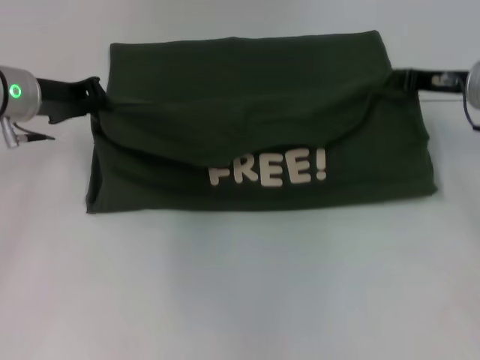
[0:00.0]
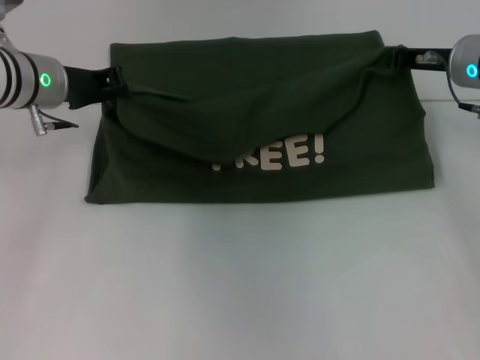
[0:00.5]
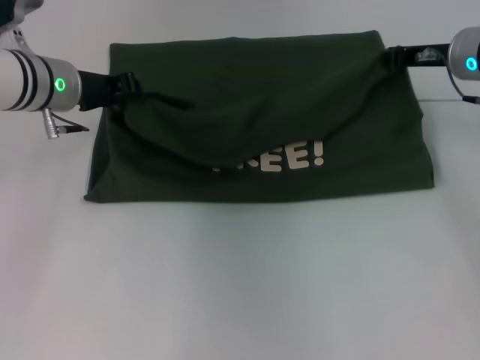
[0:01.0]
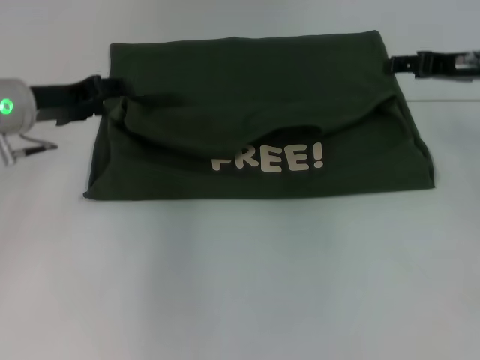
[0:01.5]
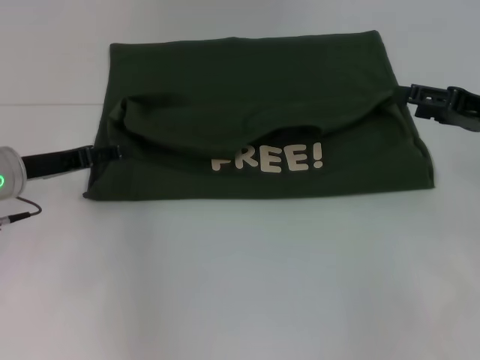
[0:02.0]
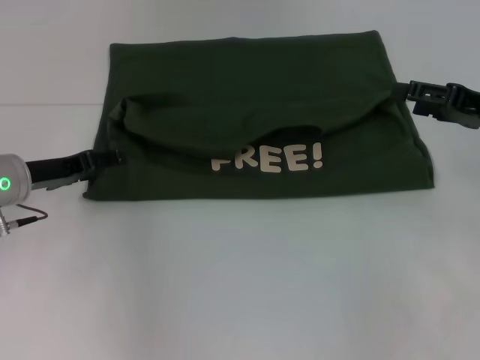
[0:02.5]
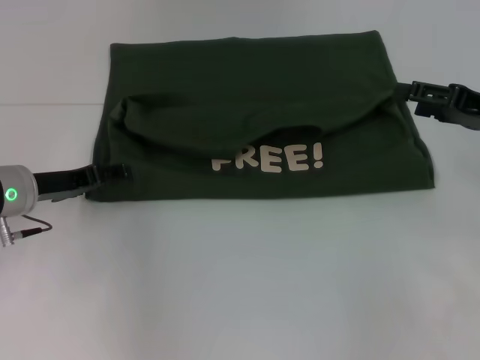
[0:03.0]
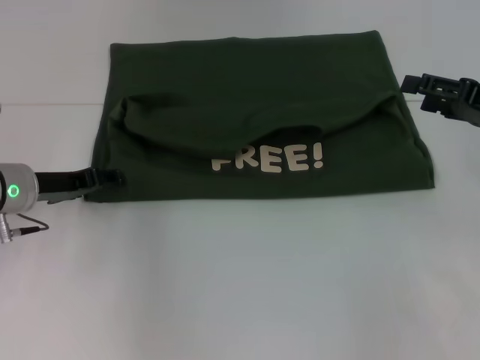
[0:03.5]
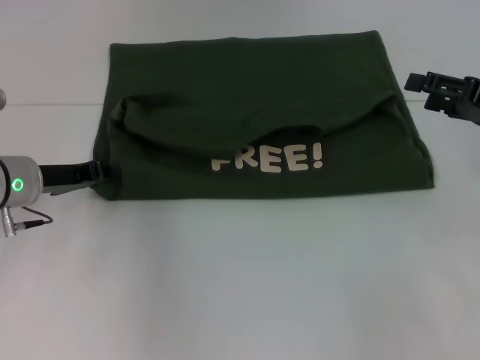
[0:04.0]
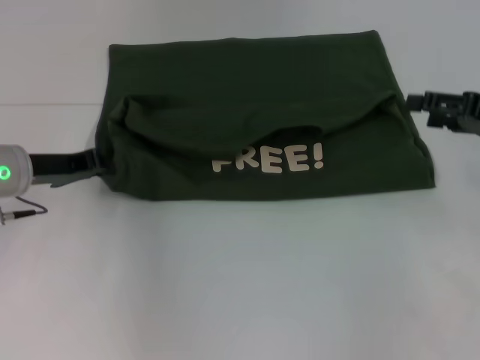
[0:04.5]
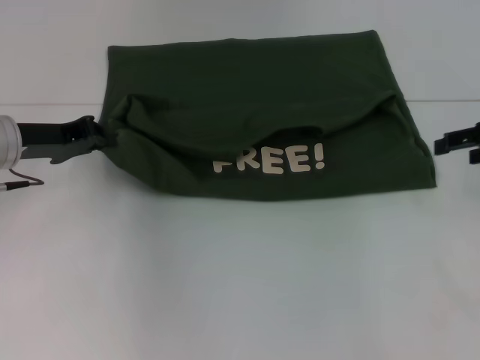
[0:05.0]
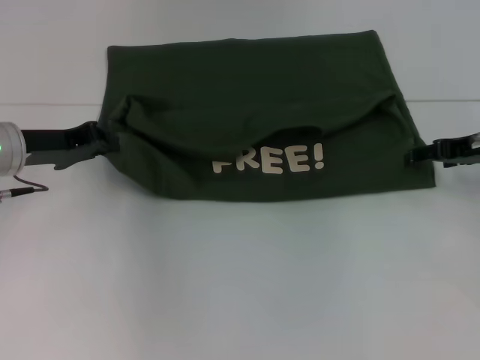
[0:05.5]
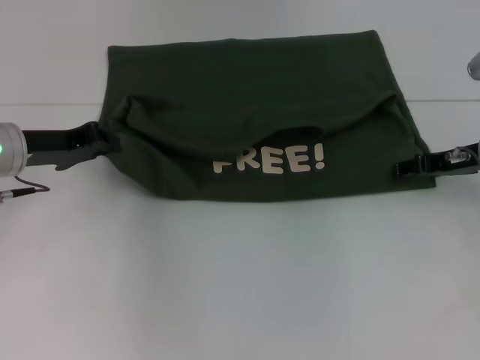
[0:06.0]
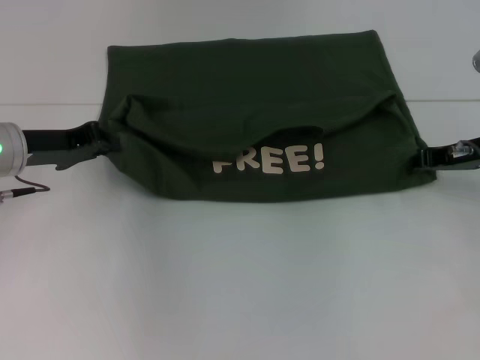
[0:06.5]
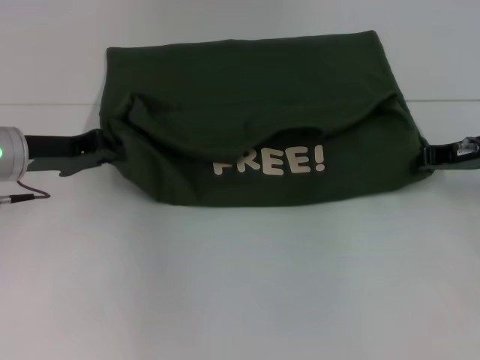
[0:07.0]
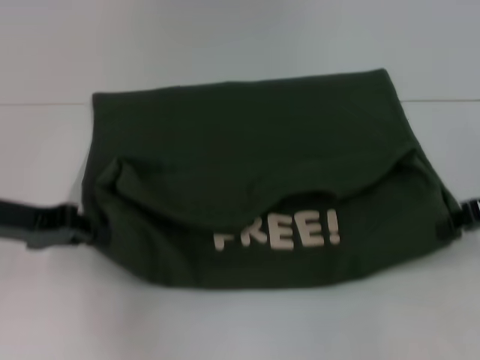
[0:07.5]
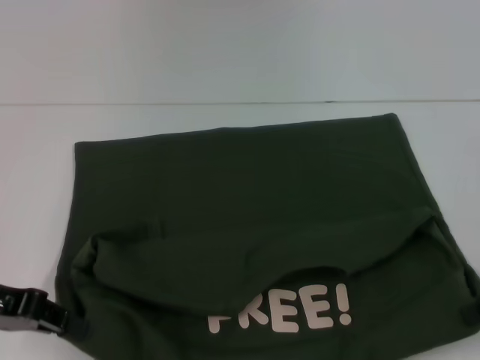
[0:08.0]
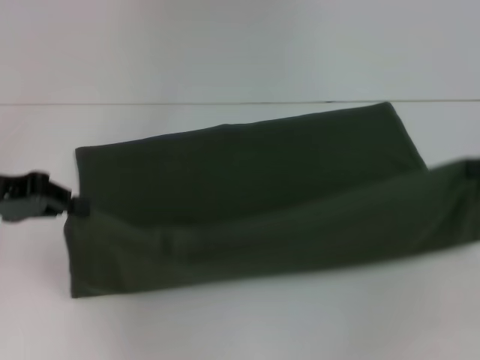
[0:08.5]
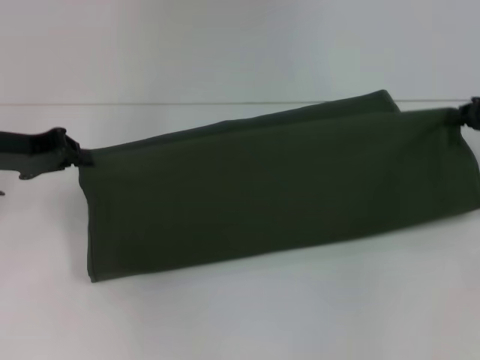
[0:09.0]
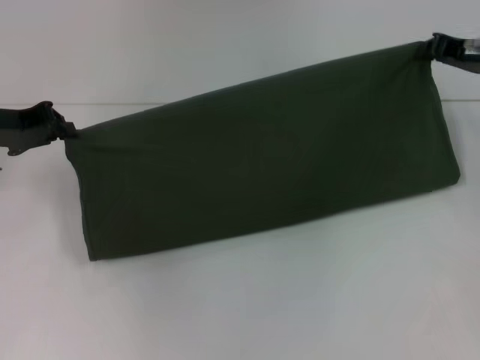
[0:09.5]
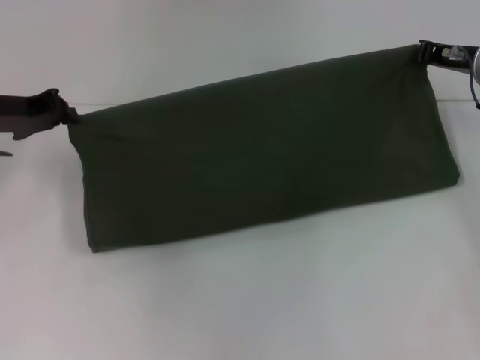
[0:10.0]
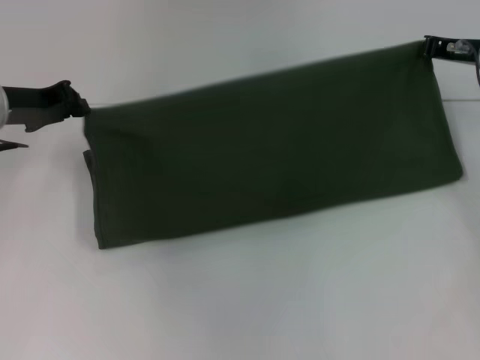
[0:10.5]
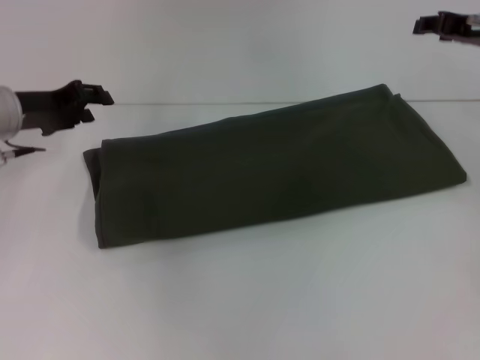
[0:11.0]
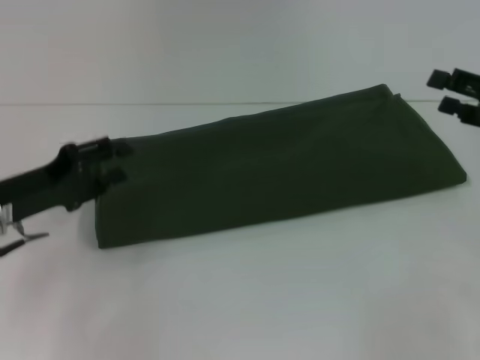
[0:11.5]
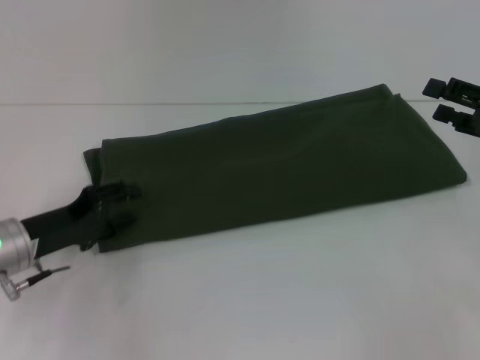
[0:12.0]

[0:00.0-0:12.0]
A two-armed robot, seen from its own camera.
Step, 0:01.5 to 0:07.5: Pull the clothes with your left hand.
Step, 0:01.5 to 0:07.5: Pull the clothes with your right hand.
Step, 0:08.0 to 0:10.5: Fold the clothes with your right hand.
0:00.0 to 0:02.0: The left gripper shifts approximately 10 cm downward and backward, and opens its fingers. Meanwhile the right gripper goes some 10 cm backward and to the right, and opens up.
0:02.0 to 0:04.0: The left gripper closes up.
0:04.0 to 0:06.0: The left gripper closes its fingers. Meanwhile the right gripper changes place by about 5 cm.
0:06.0 to 0:08.0: The right gripper moves backward and to the right, approximately 15 cm, and closes its fingers. Meanwhile the left gripper goes about 10 cm backward.
0:08.0 to 0:10.0: The right gripper heads forward and to the left, covering roughly 20 cm. Meanwhile the left gripper goes about 15 cm forward.
0:10.0 to 0:12.0: The left gripper travels downward and backward by about 15 cm, and opens, while the right gripper heads backward and to the right, covering approximately 15 cm, and opens its fingers.

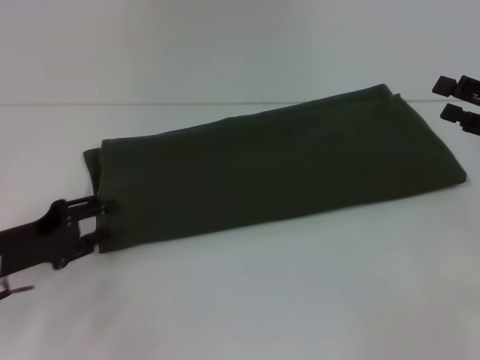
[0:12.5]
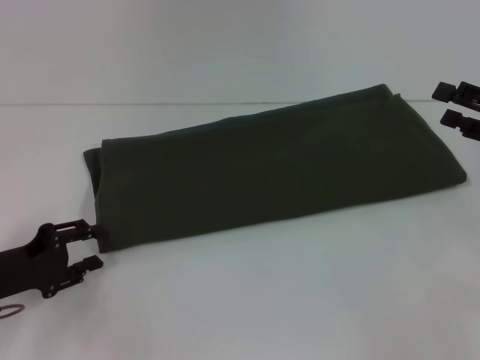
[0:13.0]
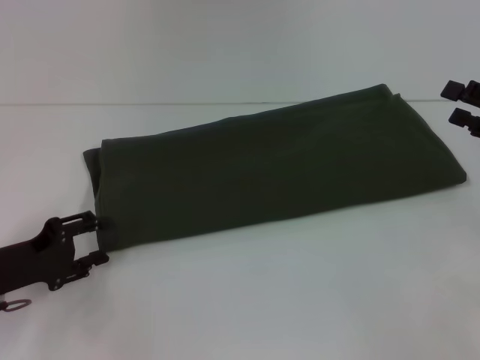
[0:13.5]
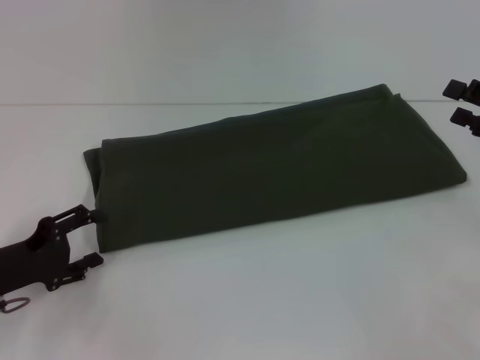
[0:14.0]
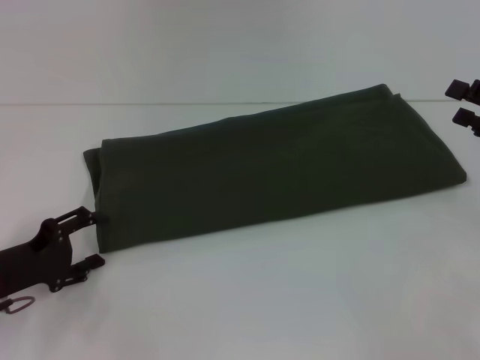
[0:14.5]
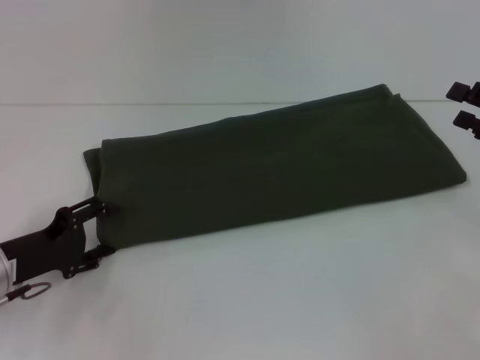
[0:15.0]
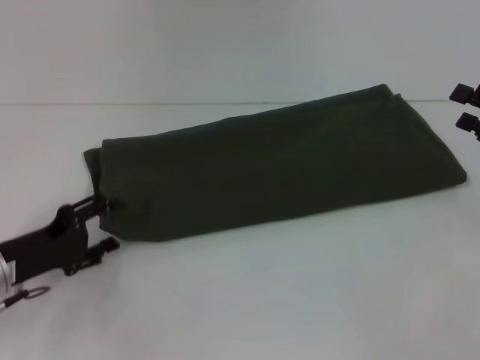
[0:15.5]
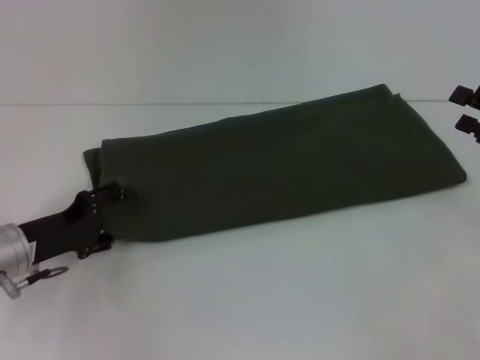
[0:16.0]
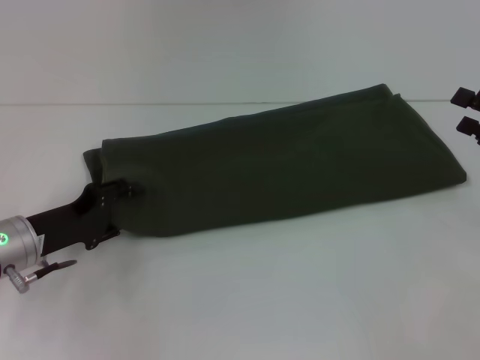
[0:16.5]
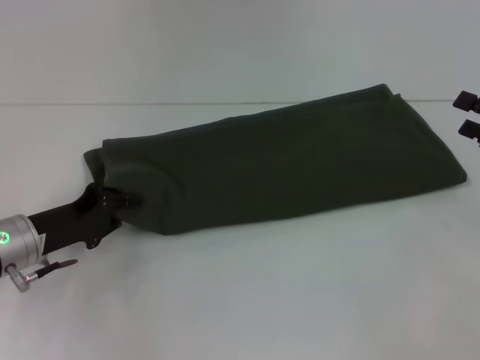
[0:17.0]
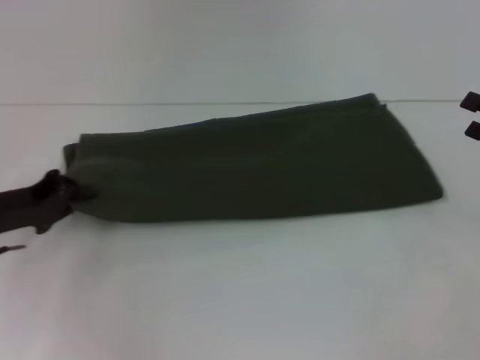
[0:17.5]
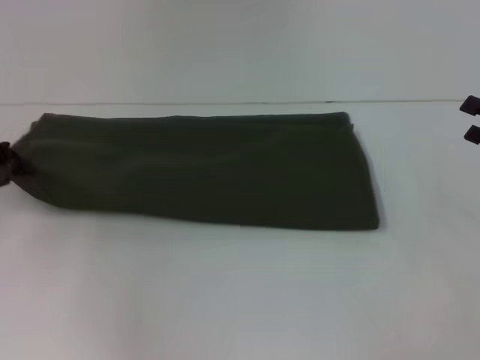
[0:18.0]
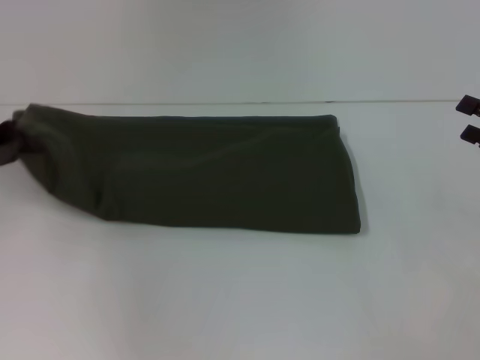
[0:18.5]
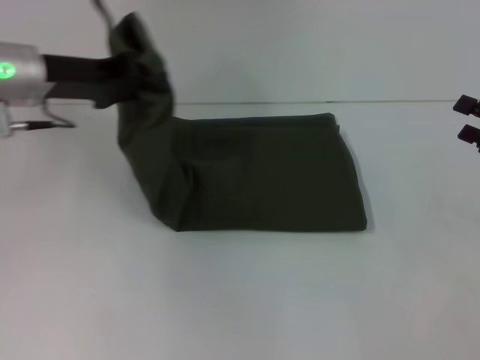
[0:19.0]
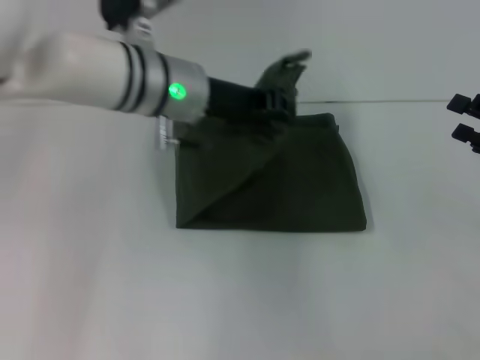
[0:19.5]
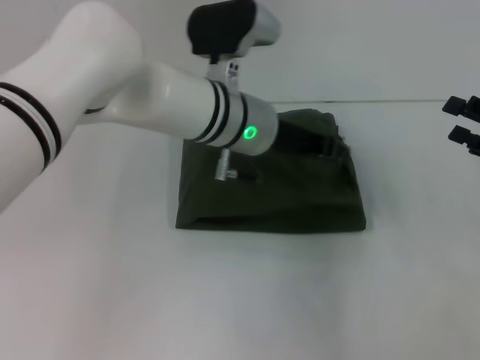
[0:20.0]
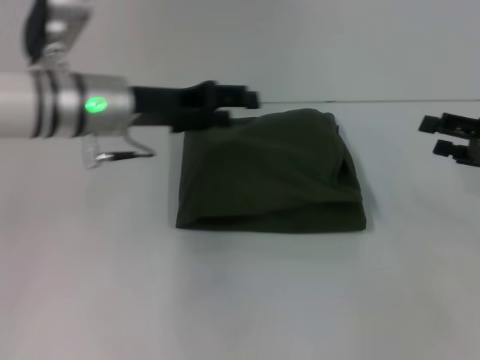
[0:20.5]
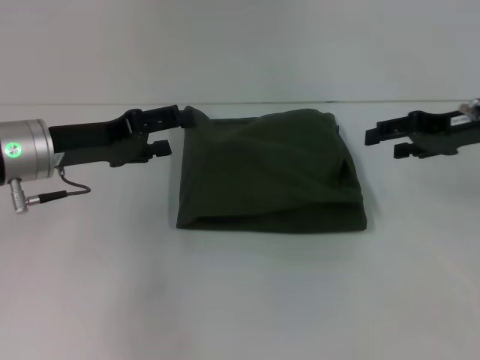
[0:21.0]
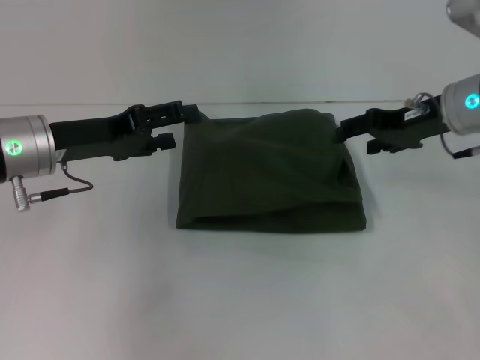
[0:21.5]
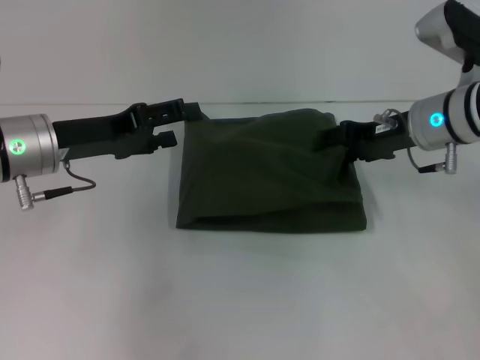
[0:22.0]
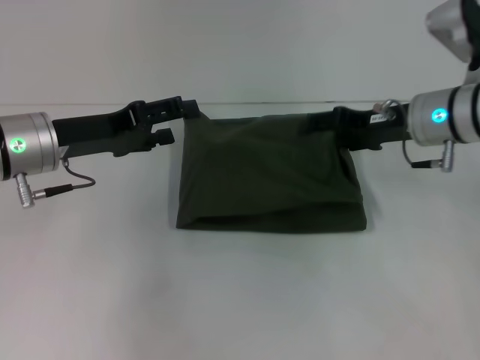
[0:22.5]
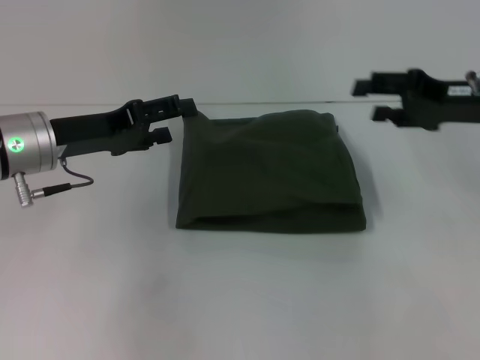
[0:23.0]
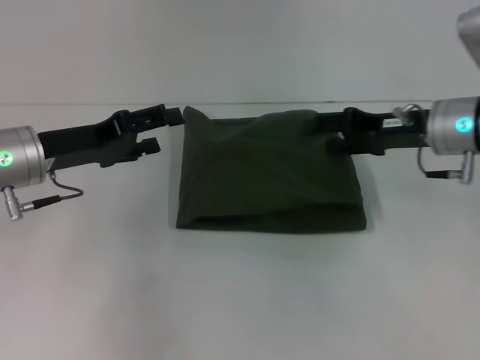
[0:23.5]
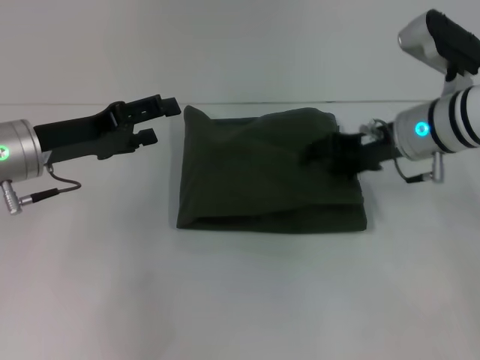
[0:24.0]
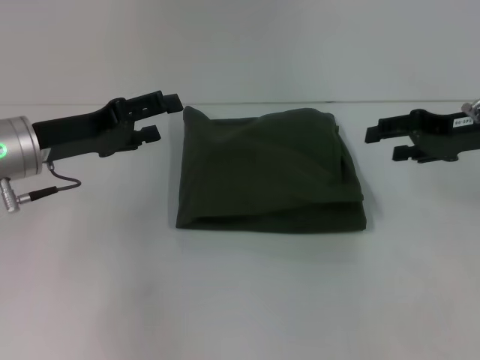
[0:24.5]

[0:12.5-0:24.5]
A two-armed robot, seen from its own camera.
Step, 0:12.5 to 0:20.0: Fold the clothes with your left hand.
0:12.5 to 0:14.5: The grippers make only small movements.
0:14.5 to 0:16.5: The left gripper moves some 5 cm.
0:16.5 to 0:18.5: The left gripper travels upward, to the left and forward by about 15 cm, and closes up.
0:18.5 to 0:20.5: The left gripper travels to the right by roughly 20 cm, and opens up.
0:20.5 to 0:22.5: The right gripper travels to the left and forward by approximately 15 cm. Meanwhile the left gripper is displaced to the left by roughly 5 cm, and opens.
0:22.5 to 0:24.5: The right gripper swings left and right, some 10 cm each way, with 2 reversals.

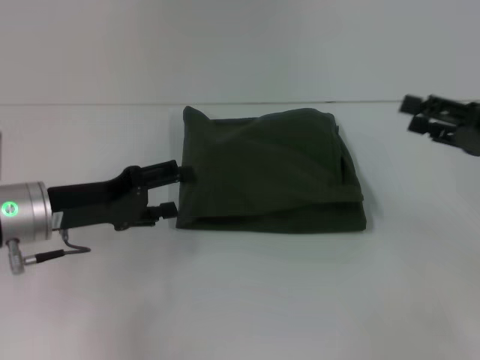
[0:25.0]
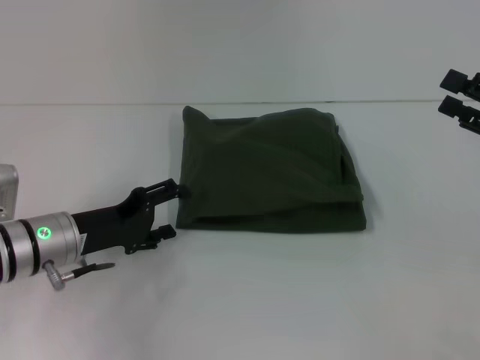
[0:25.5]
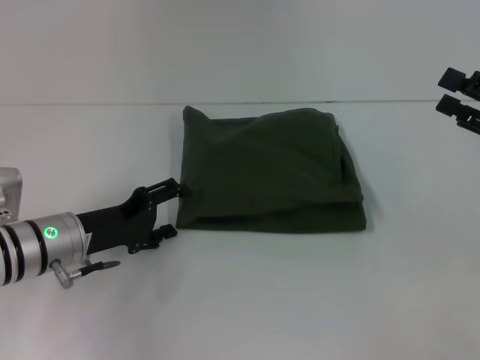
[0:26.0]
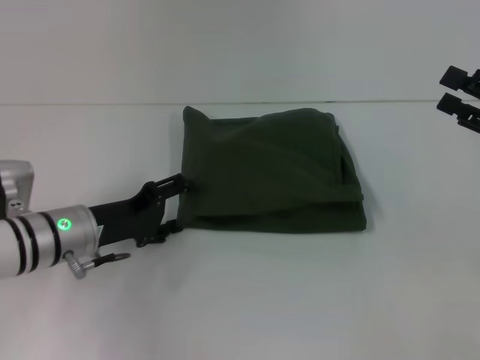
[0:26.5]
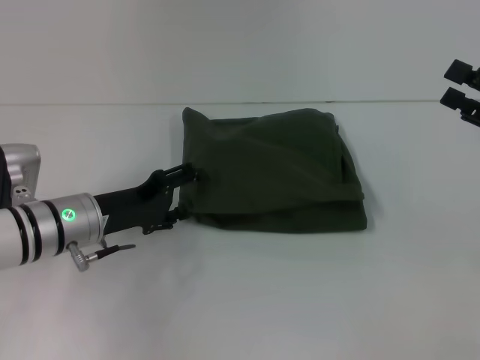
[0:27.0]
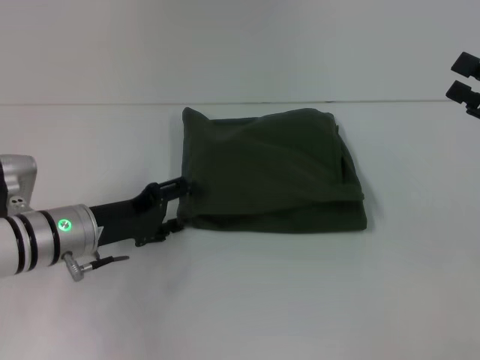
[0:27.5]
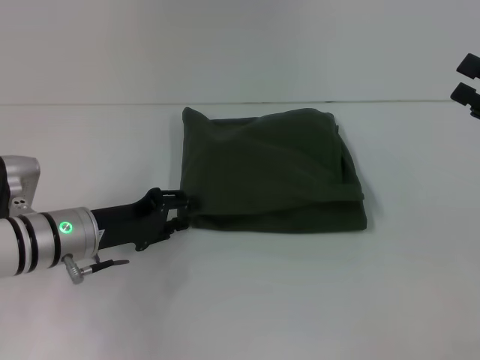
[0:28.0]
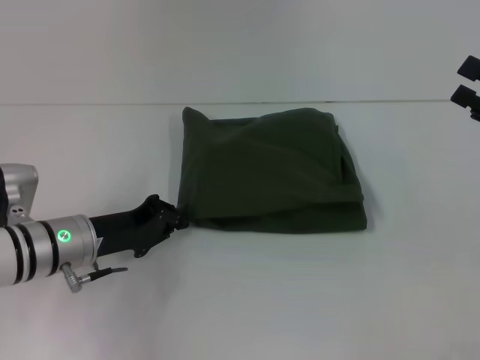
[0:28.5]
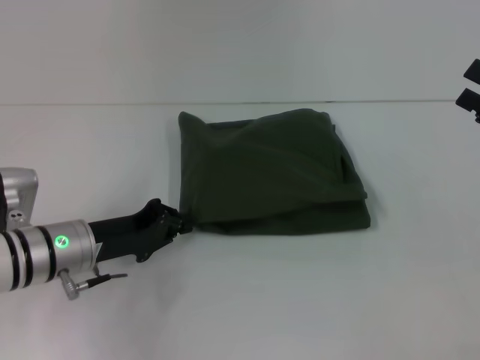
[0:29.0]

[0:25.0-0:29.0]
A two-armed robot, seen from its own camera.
0:25.0 to 0:27.0: The left gripper moves about 5 cm.
0:27.0 to 0:29.0: The left gripper closes.
